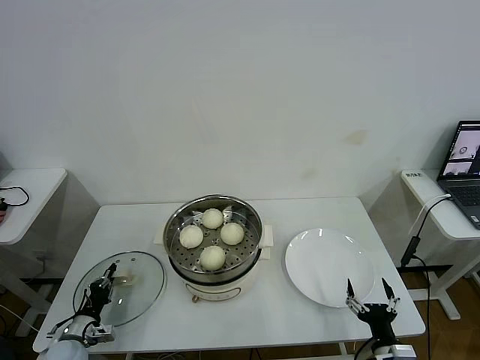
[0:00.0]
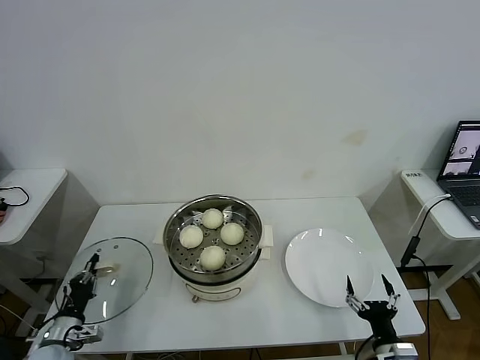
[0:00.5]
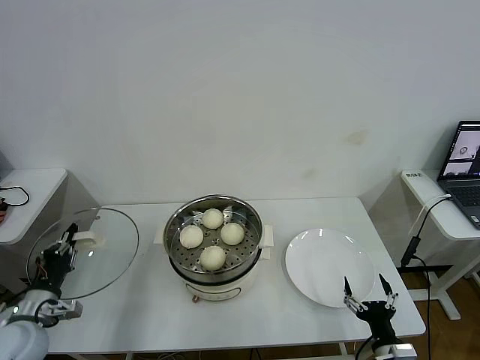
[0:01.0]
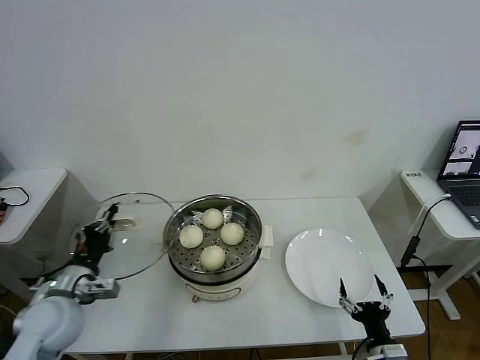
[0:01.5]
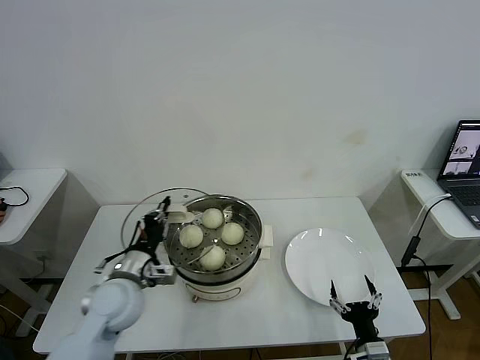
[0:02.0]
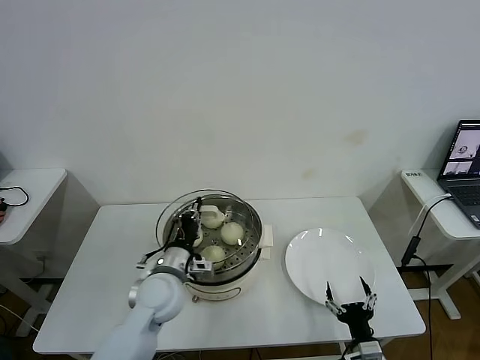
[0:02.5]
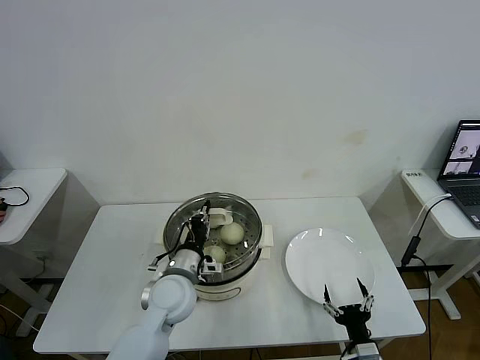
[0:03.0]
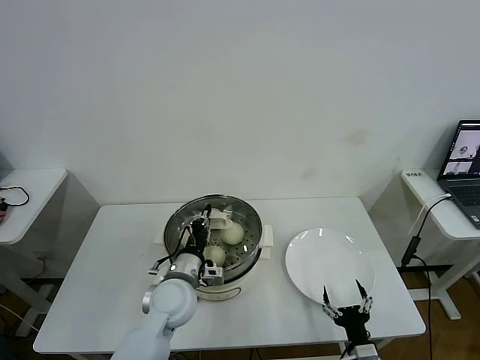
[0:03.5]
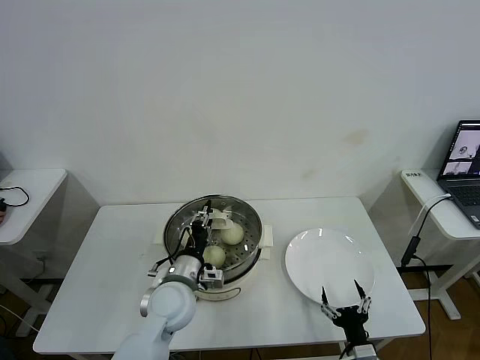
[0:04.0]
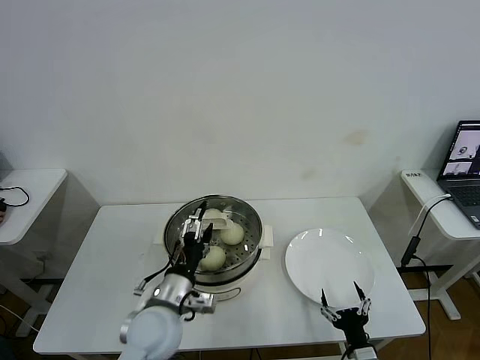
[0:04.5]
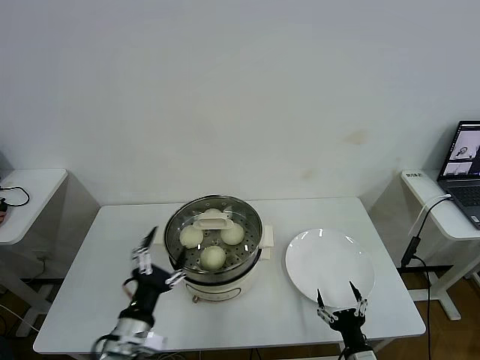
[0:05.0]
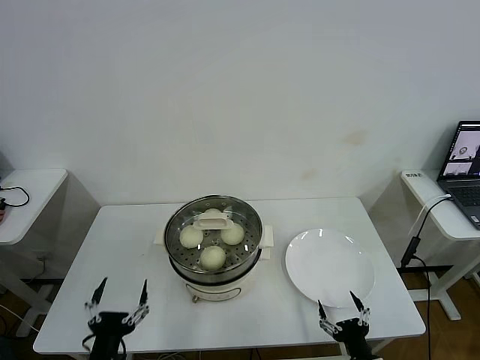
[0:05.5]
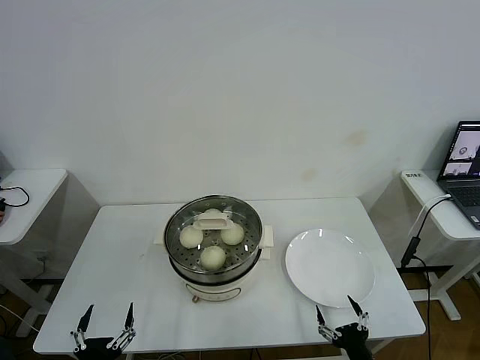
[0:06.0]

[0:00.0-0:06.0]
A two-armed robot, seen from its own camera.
Task of the whole recording: take steamed baozi put them in steamer then cover it.
Step, 0:00.5 to 0:04.5: Place the pot lid on the steamer with left gripper.
0:00.0 to 0:02.0: The left gripper goes roughly 25 cm upward and to the right.
0:02.0 to 0:04.0: The left gripper moves to the right, approximately 10 cm.
0:04.0 to 0:06.0: The left gripper goes about 30 cm backward and to the left, and opens.
